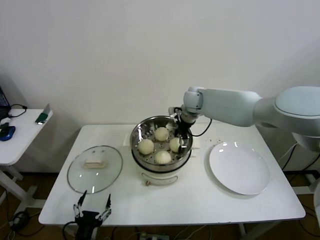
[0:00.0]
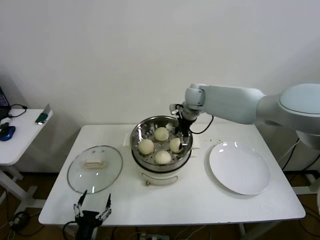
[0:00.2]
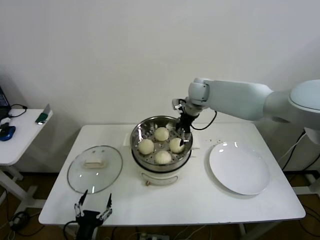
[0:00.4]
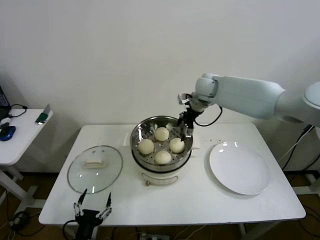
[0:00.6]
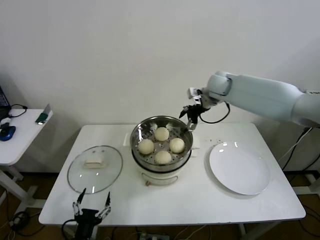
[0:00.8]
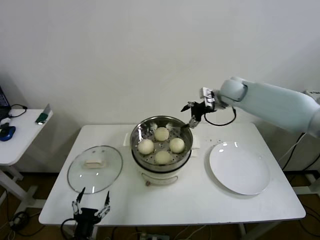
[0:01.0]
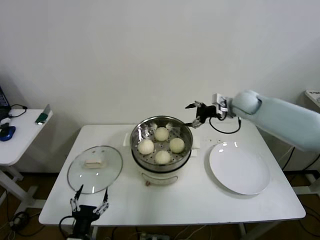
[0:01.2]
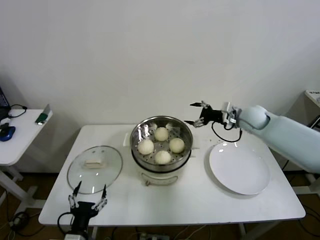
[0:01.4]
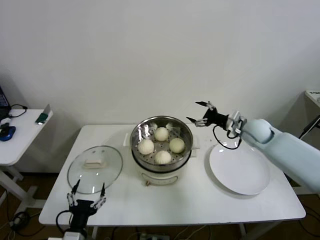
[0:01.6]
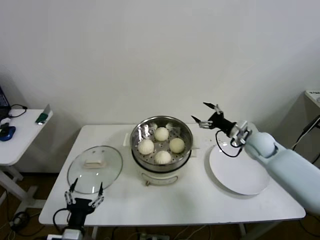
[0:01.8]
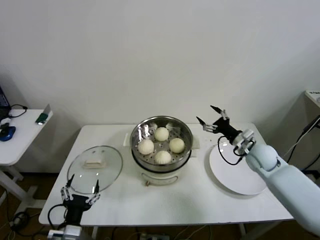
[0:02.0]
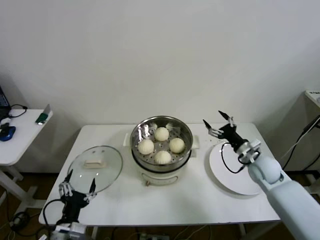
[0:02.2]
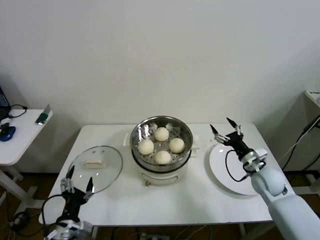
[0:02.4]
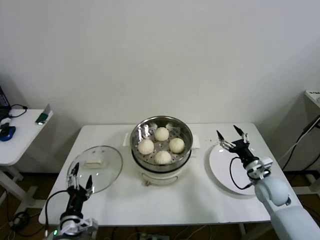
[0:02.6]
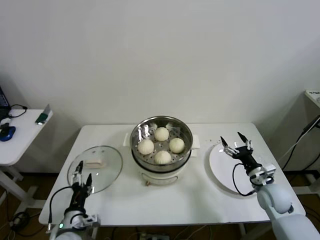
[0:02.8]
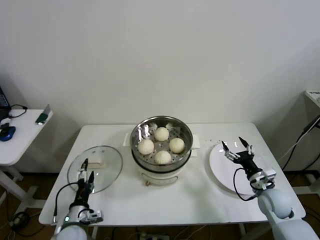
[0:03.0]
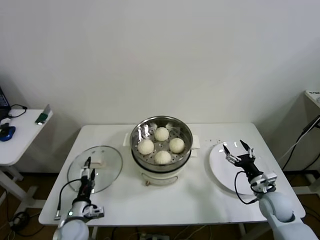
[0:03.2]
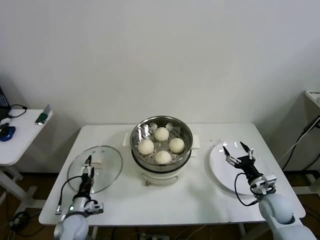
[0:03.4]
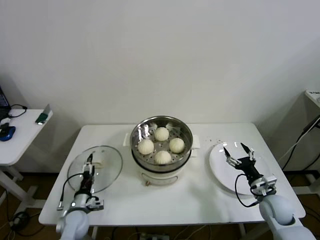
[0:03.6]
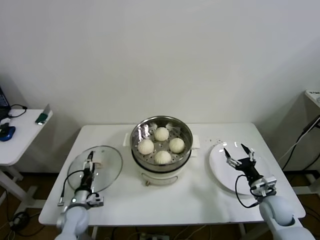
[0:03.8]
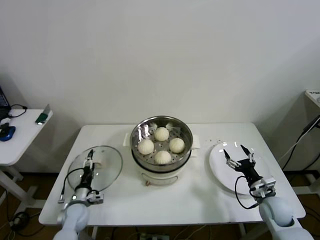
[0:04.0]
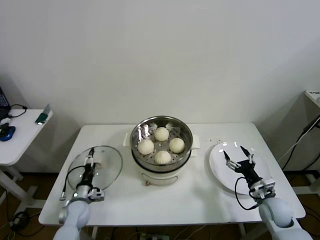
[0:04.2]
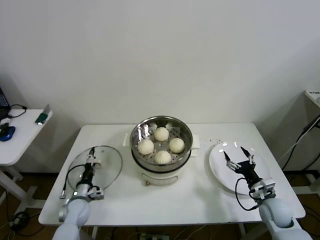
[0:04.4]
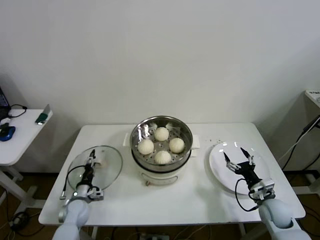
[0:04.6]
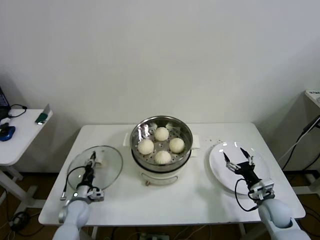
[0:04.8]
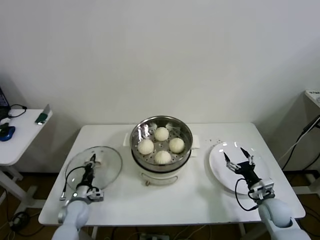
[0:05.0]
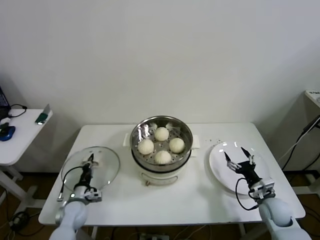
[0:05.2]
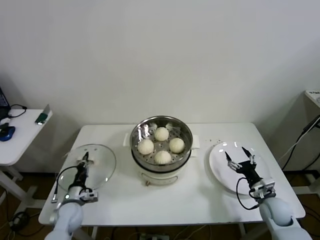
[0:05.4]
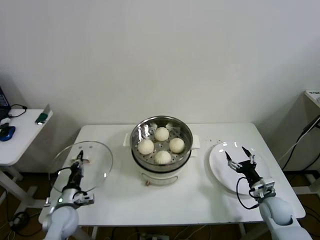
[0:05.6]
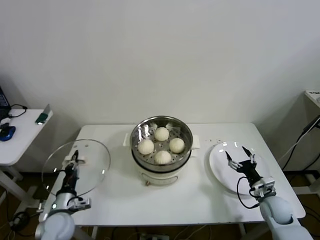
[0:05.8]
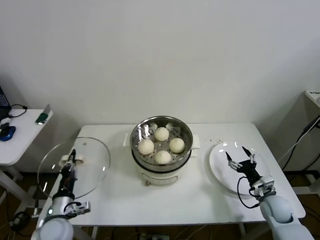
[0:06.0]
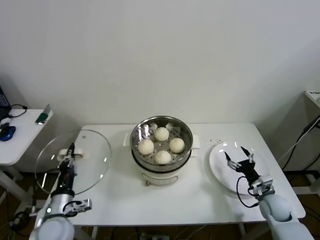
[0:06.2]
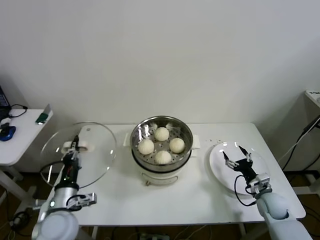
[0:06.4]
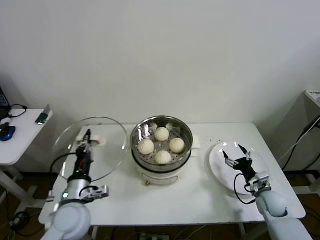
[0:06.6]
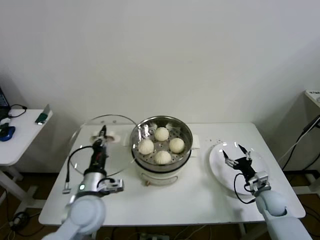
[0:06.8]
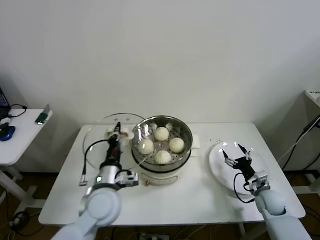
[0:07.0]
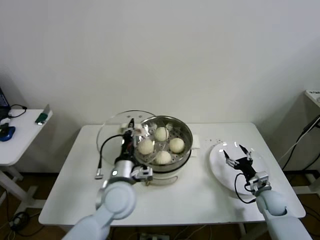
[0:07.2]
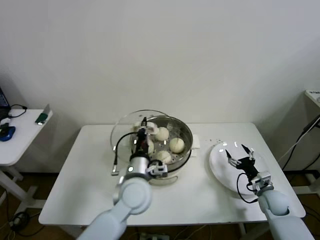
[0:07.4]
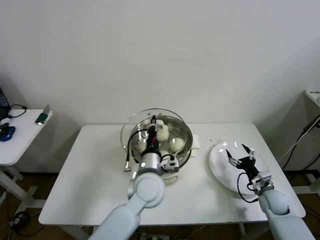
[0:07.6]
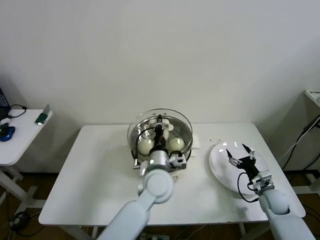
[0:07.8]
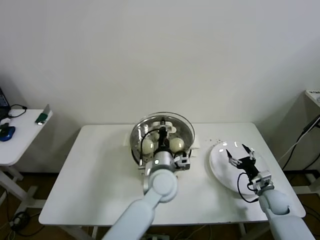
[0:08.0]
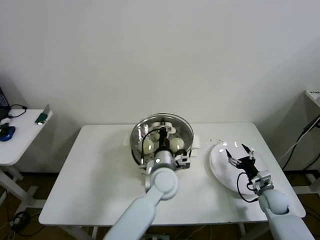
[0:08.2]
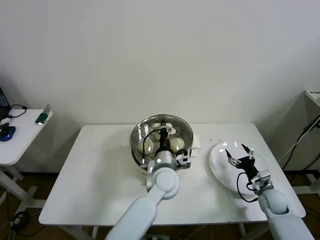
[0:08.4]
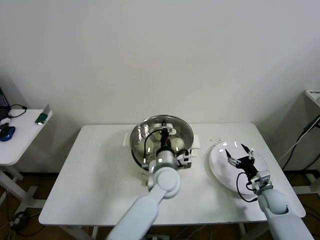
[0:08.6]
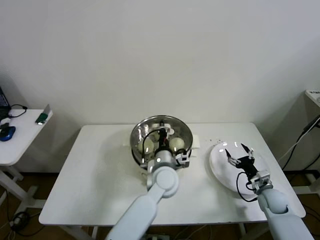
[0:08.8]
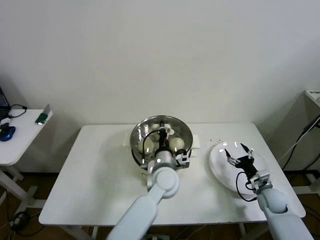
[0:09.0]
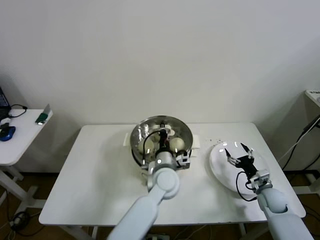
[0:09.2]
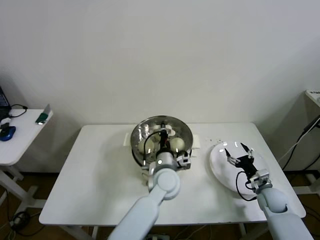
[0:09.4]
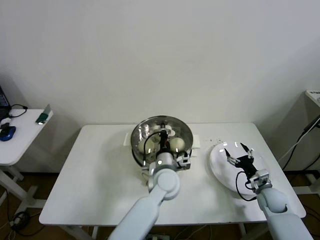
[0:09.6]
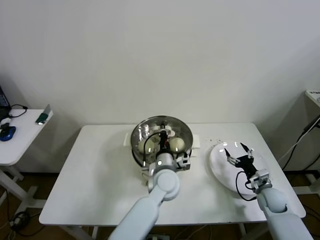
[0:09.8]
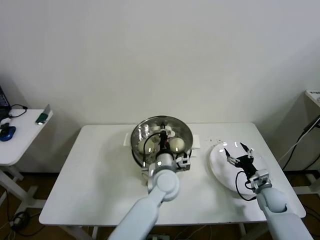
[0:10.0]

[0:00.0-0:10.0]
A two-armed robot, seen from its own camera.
Step, 0:00.6 to 0:05.0: Grasp the pot lid with left gripper.
0:00.0 to 0:01.4: The right gripper goes approximately 20 cm to the right.
0:01.4 to 0:02.8: The right gripper travels backward and downward by approximately 30 cm. Meanwhile the left gripper travels forward by approximately 5 cm.
0:02.8 to 0:04.2: The left gripper travels forward and downward by approximately 15 cm, while the right gripper changes place by about 5 cm.
0:04.2 to 0:05.8: The left gripper is displaced upward and backward by approximately 10 cm, and closes its fingers.
0:05.8 to 0:07.2: The left gripper goes roughly 25 cm to the right and upward.
0:07.2 to 0:08.6: The left gripper heads to the right and forward, covering approximately 15 cm.
0:08.6 to 0:10.0: The grippers make only small movements.

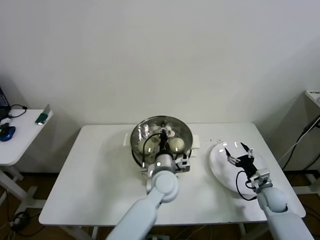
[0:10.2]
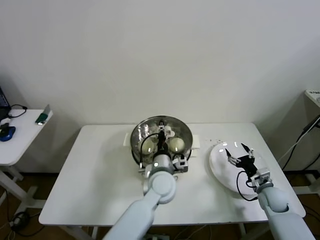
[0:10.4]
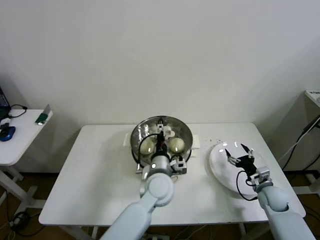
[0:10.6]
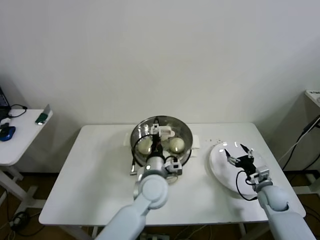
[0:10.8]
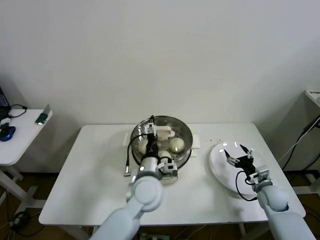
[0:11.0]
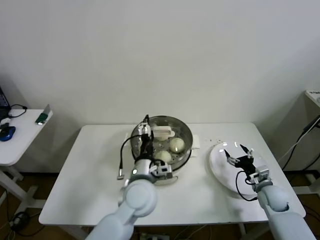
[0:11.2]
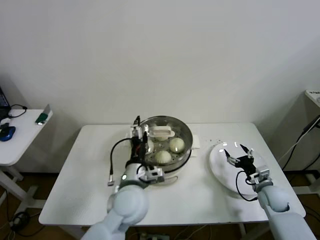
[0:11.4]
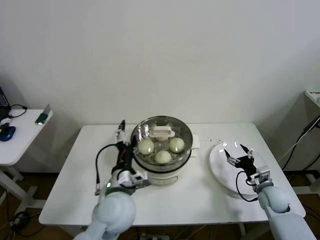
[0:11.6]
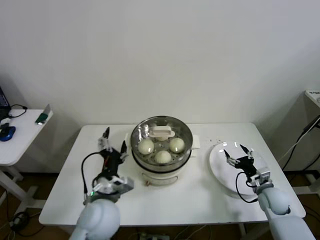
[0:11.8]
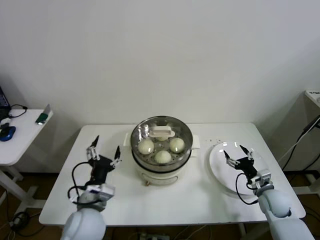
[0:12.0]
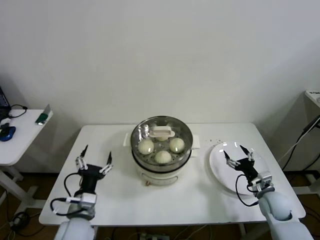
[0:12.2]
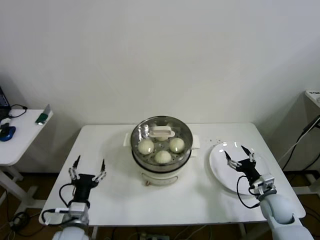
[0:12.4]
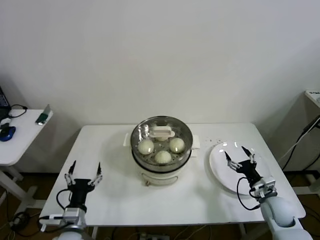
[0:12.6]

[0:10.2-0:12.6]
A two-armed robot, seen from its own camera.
0:10.2 to 0:11.4: The left gripper moves to the left, backward and upward, some 10 cm, and opens up.
0:11.4 to 0:12.6: The left gripper moves to the left, downward and backward, roughly 25 cm.

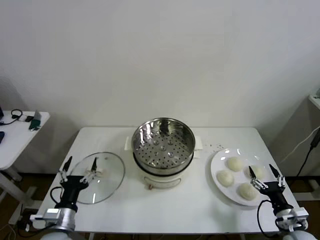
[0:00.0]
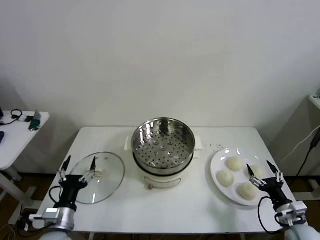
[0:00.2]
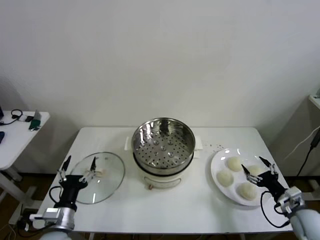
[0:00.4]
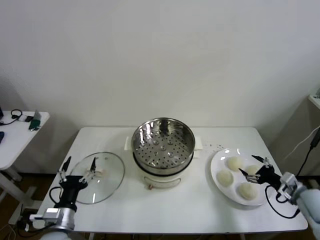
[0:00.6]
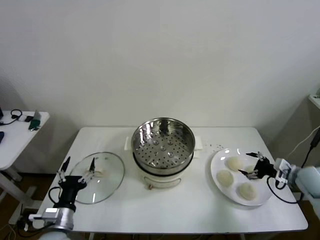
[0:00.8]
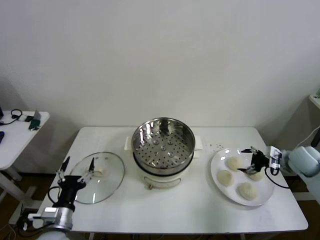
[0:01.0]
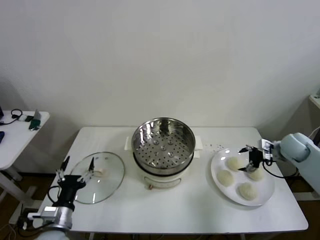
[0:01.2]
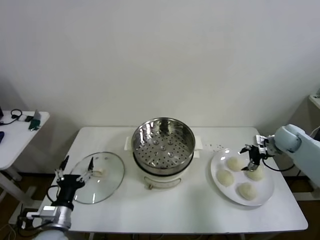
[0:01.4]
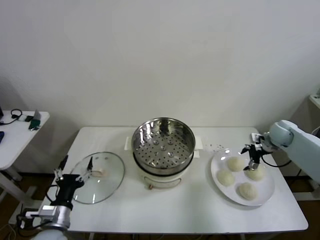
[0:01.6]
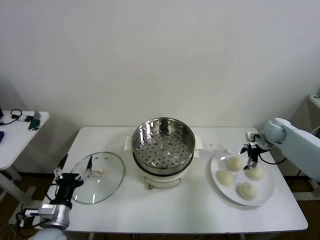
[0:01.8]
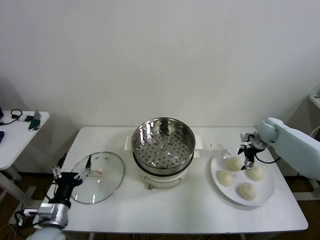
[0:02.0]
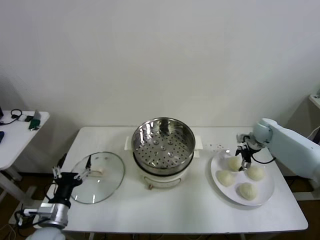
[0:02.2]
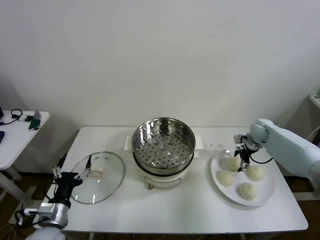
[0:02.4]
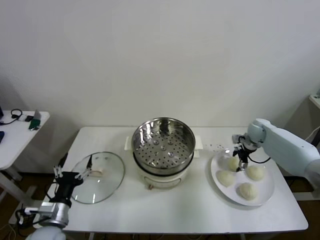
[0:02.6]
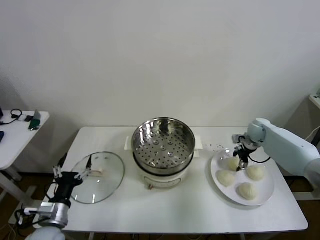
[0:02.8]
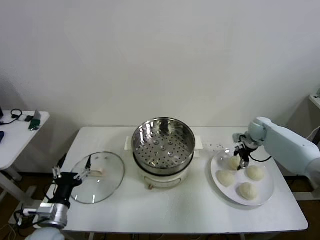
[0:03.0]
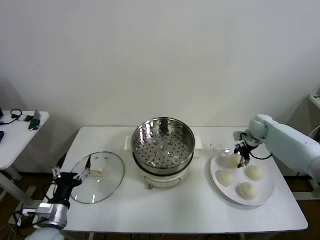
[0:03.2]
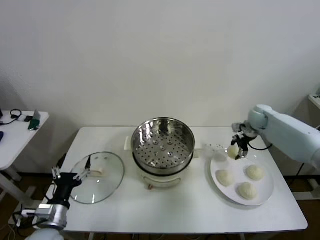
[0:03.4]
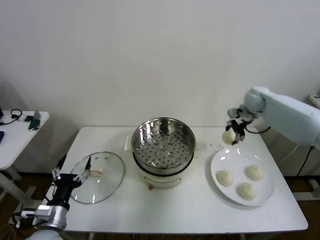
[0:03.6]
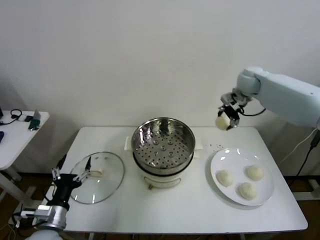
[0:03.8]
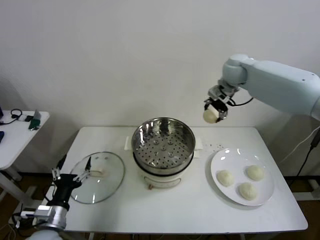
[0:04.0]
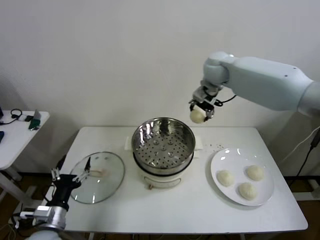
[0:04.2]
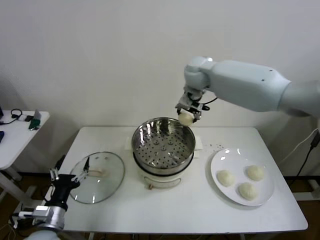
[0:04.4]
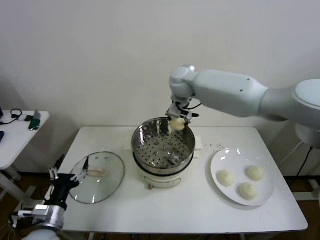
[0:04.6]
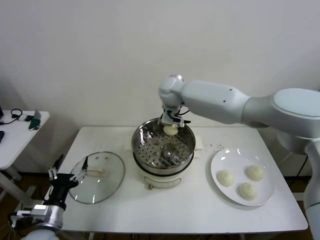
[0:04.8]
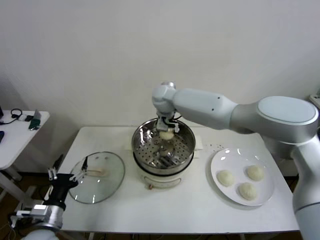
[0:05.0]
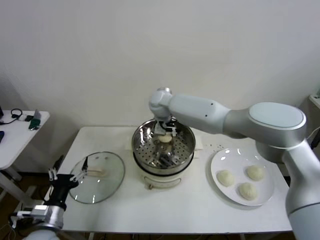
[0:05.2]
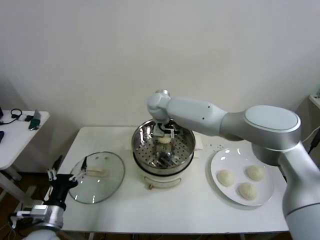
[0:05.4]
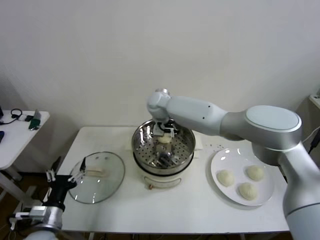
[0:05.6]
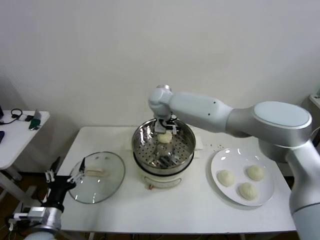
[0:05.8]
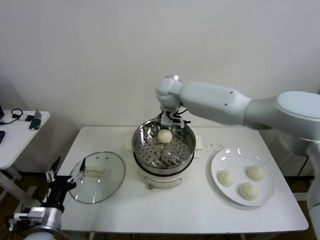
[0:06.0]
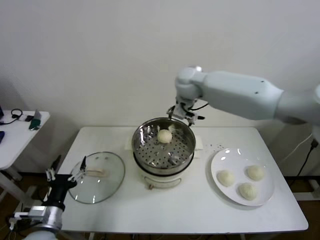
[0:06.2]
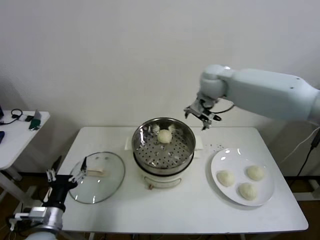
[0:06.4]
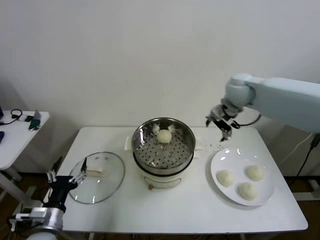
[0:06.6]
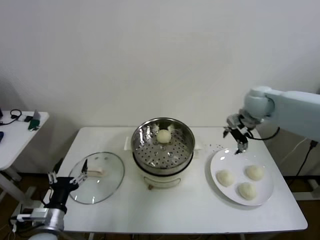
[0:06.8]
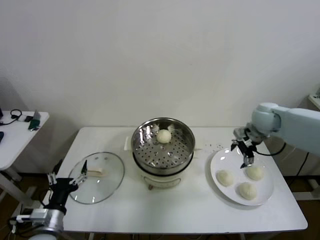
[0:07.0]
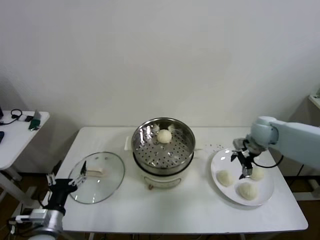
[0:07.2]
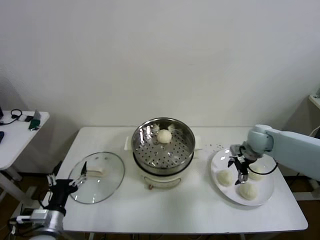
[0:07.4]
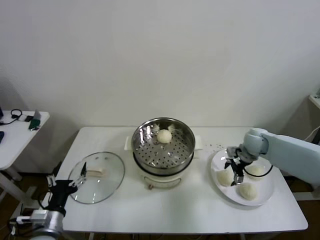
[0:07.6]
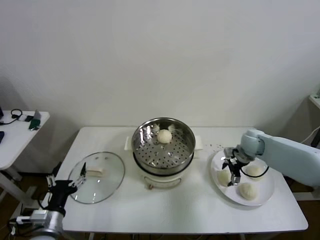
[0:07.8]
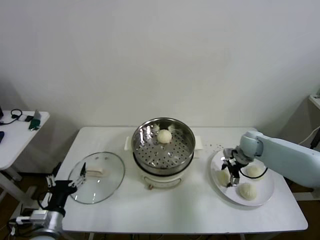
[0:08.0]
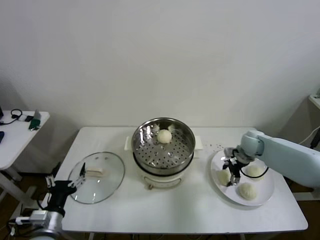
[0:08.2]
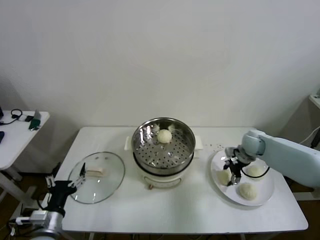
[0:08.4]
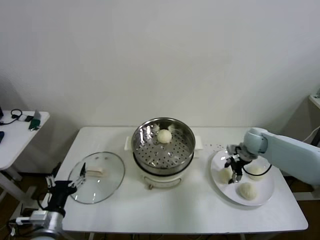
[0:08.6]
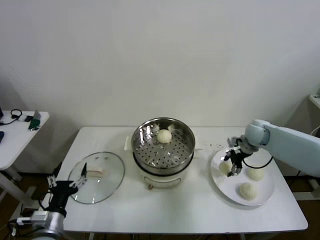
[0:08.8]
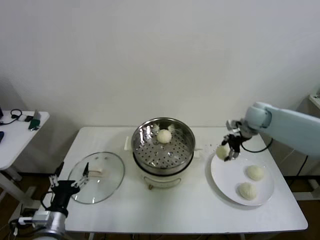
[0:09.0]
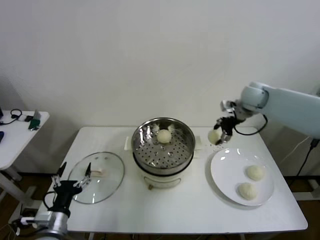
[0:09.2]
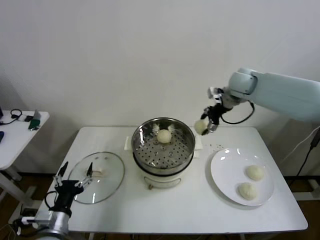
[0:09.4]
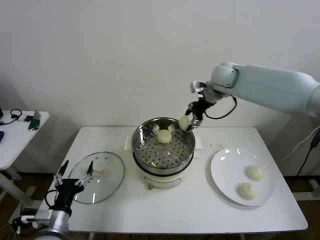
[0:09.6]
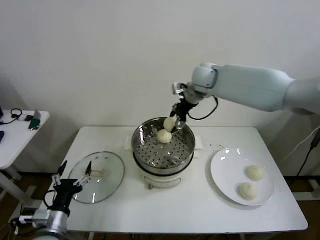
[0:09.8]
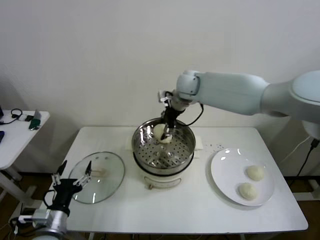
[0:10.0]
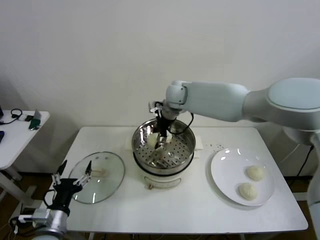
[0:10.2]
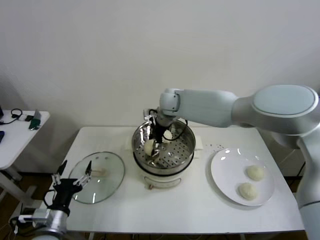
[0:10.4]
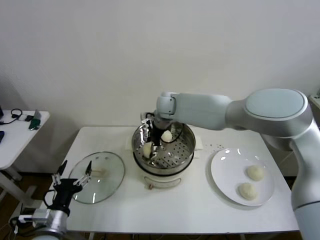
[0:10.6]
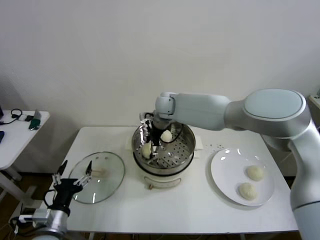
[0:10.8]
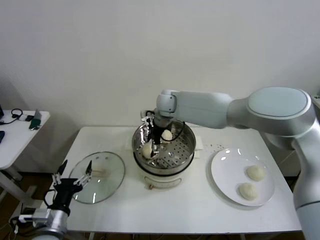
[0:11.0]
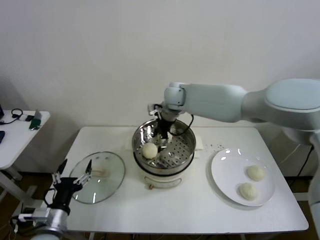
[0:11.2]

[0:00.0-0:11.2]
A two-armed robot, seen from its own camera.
Step, 0:00.0 to 0:02.6: Grasp the baozi in the plate with right gripper.
Step, 0:02.8 to 0:05.6: Place the baozi on the steamer with right gripper.
Step, 0:05.8 to 0:08.2: Grasp the baozi in the plate with right gripper.
Step, 0:08.6 to 0:10.8: Place the baozi on the steamer with right gripper.
0:01.6 to 0:03.2: The right gripper goes about 5 cm to the left, and closes.
0:03.2 to 0:04.8: The right gripper is displaced to the left by some 40 cm.
0:04.8 to 0:06.4: The right gripper moves to the right, approximately 20 cm, and opens its fingers.
0:06.4 to 0:08.0: The right gripper moves downward and to the right, about 30 cm.
0:08.0 to 0:09.6: The right gripper is displaced upward and to the left by some 30 cm, and closes its fingers.
0:09.6 to 0:11.2: The right gripper heads to the left and downward, covering about 15 cm, and opens its fingers.
